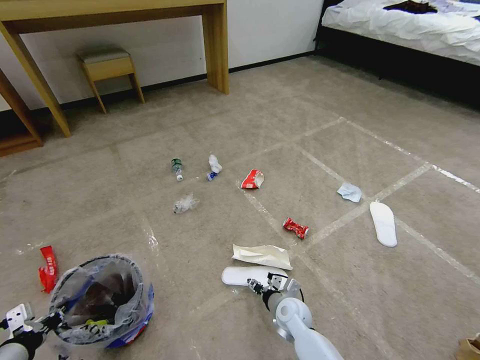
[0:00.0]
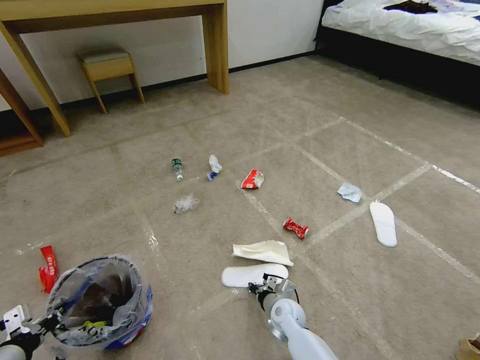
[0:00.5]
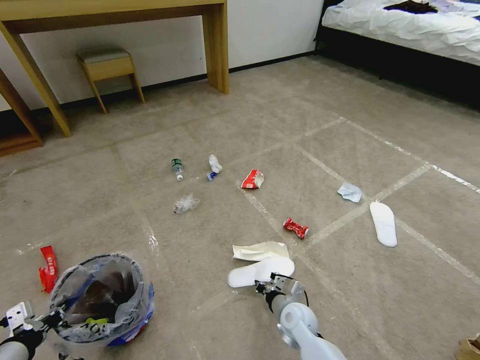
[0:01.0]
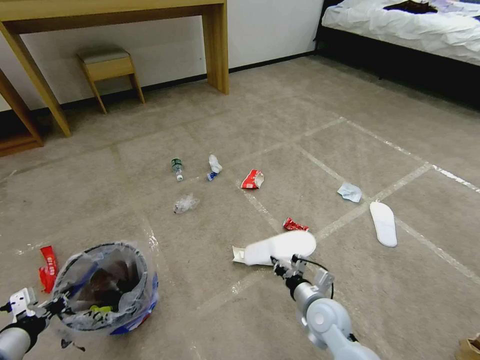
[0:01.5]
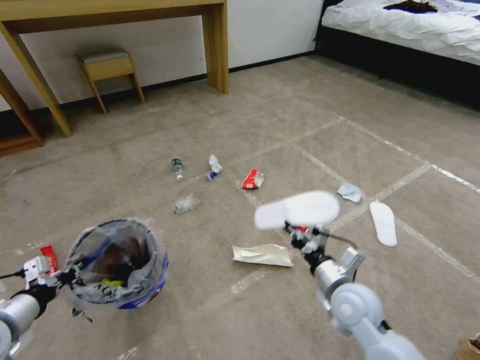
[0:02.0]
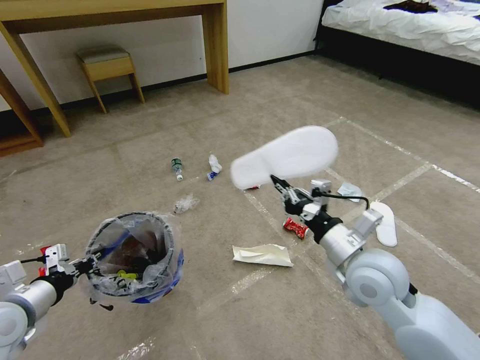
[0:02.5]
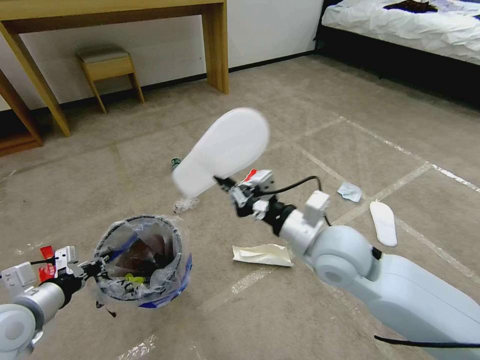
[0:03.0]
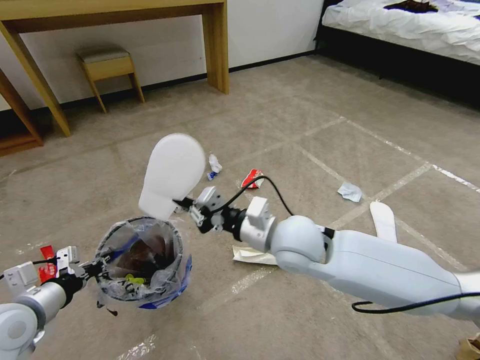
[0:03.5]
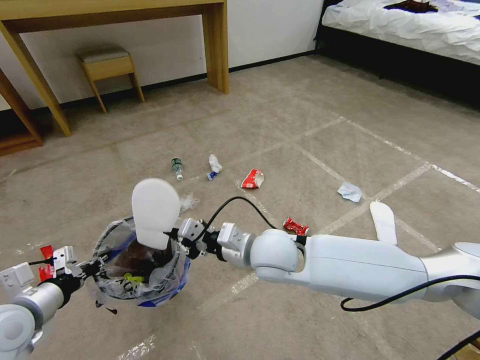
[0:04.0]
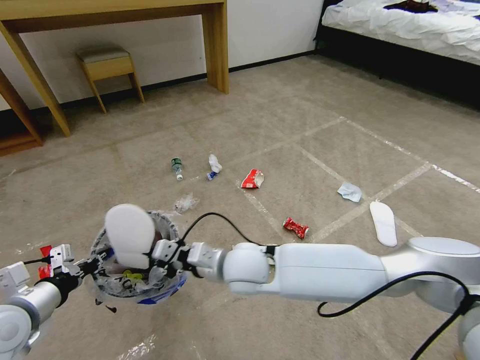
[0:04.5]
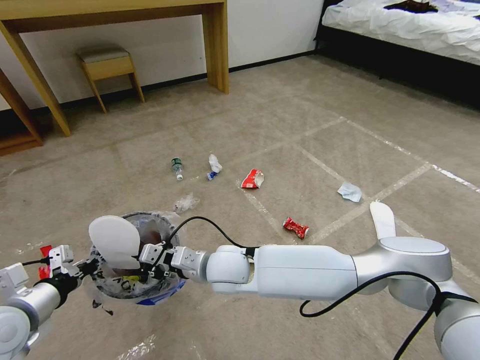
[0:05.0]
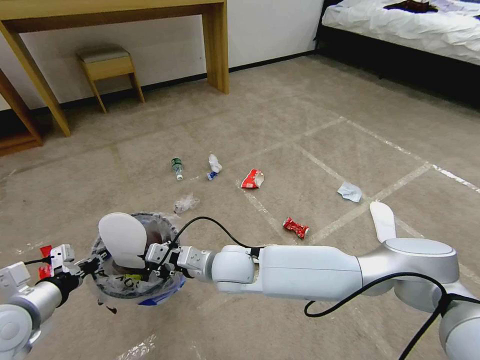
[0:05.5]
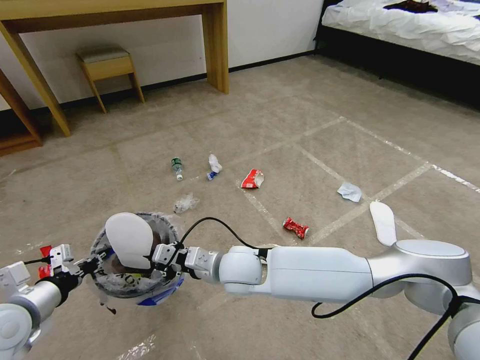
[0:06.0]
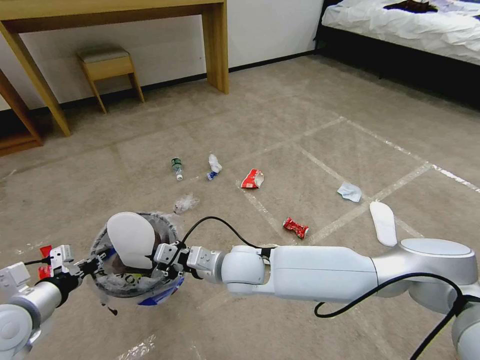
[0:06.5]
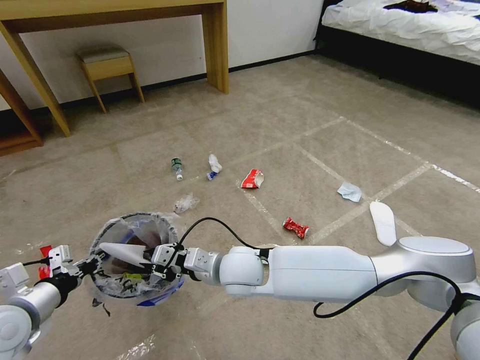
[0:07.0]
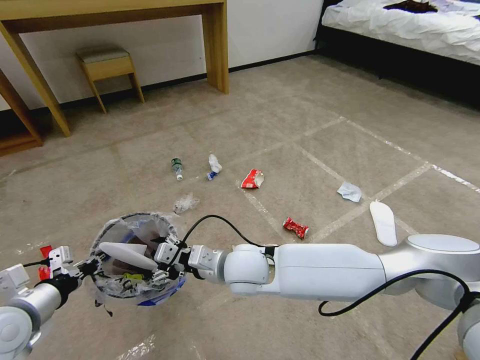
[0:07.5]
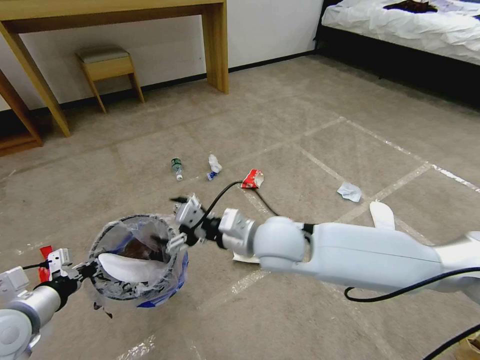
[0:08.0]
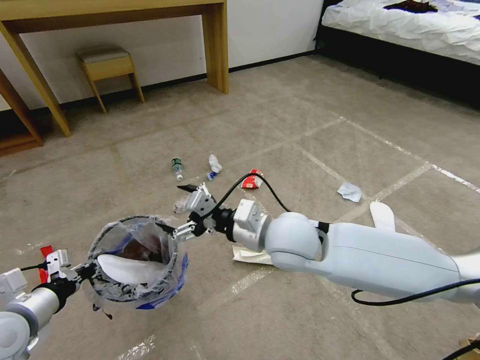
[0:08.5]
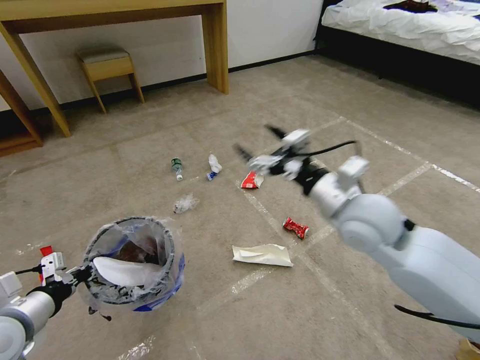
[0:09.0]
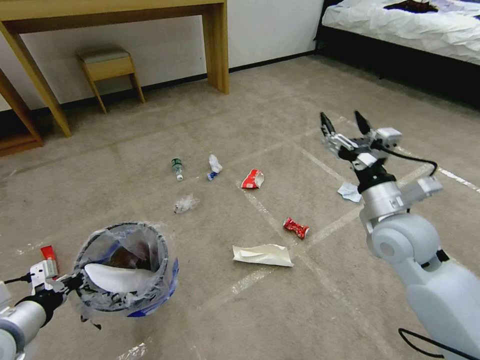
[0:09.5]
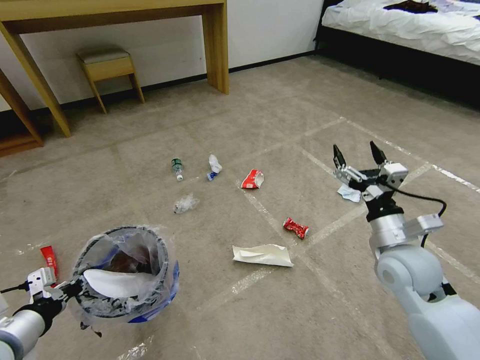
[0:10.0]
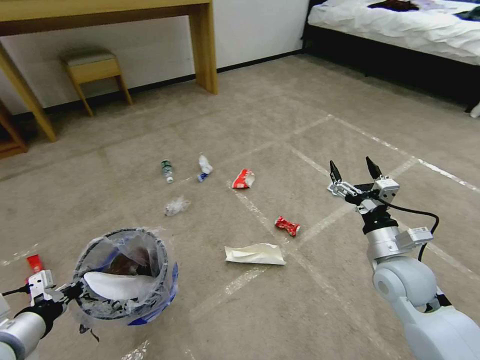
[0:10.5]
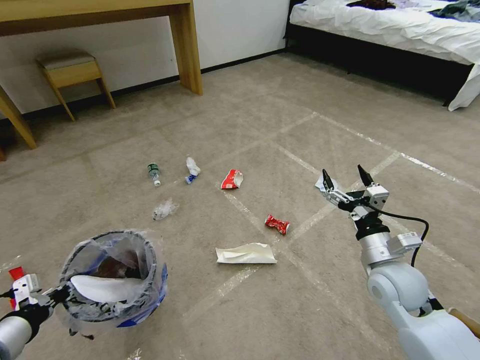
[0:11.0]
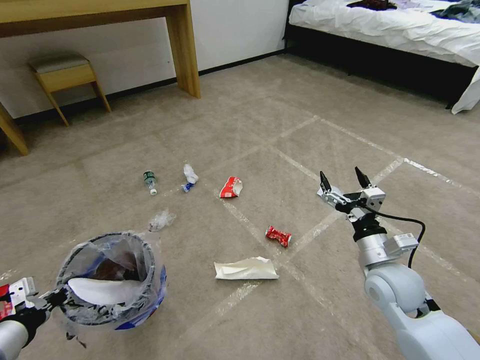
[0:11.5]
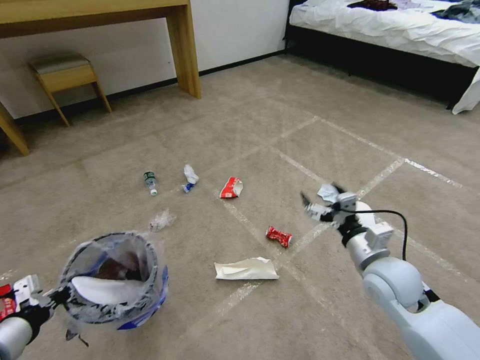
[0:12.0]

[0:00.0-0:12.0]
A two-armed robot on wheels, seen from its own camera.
Task of the whole recording: Pick up the trash bin and place the garbage on the floor into it.
0:00.0 to 0:02.0: The left gripper is displaced forward and upward by some 10 cm; the right gripper is displaced upward and to the right by some 20 cm, and closes its fingers.
0:02.0 to 0:04.0: The right gripper moves to the left and upward, about 20 cm.
0:04.0 to 0:06.0: The right gripper moves to the left and downward, approximately 10 cm.
0:06.0 to 0:08.0: The right gripper is displaced upward and to the right by approximately 10 cm, and opens up.
0:08.0 to 0:10.0: The right gripper travels to the right by approximately 25 cm.

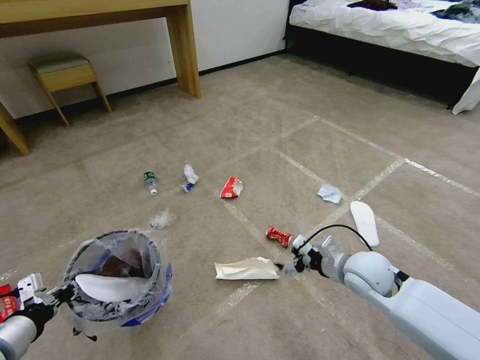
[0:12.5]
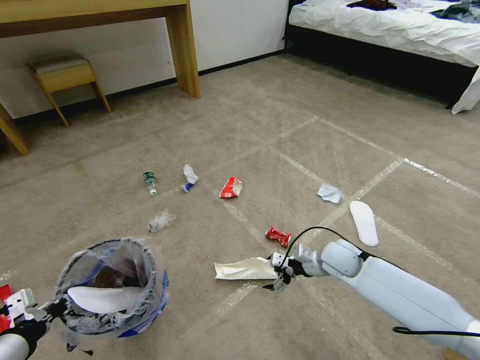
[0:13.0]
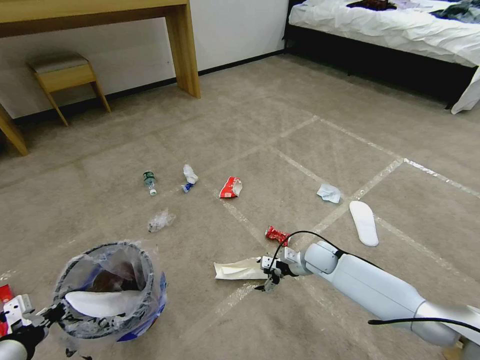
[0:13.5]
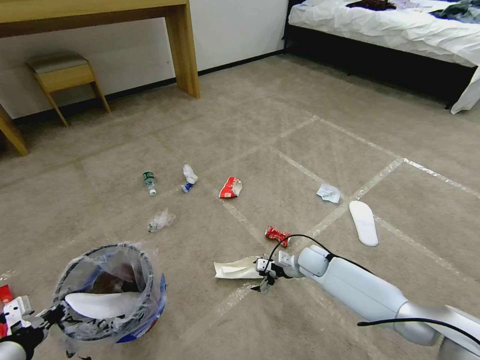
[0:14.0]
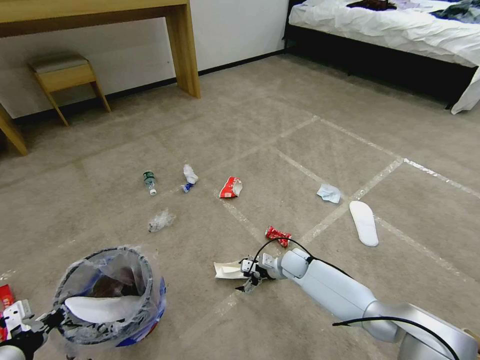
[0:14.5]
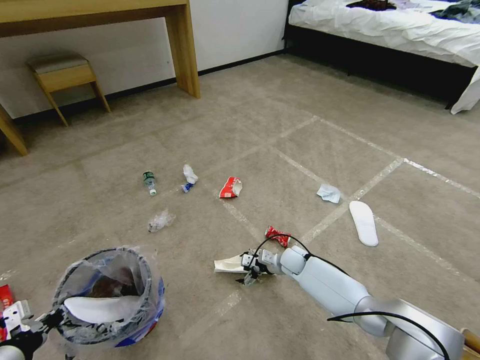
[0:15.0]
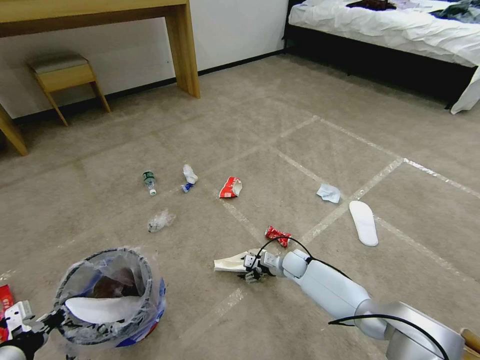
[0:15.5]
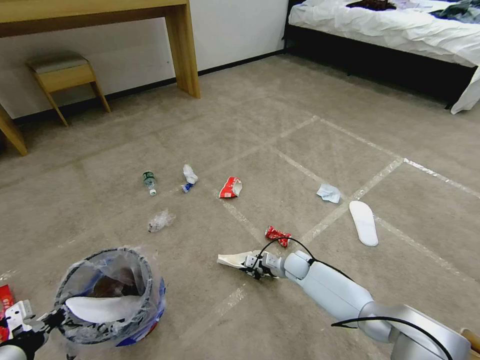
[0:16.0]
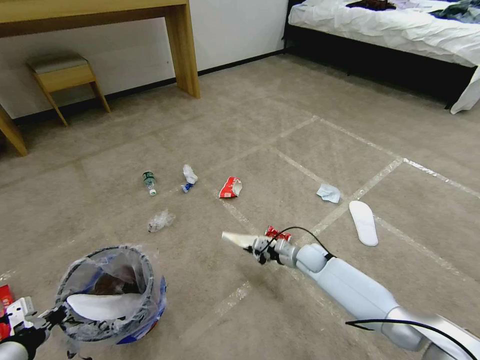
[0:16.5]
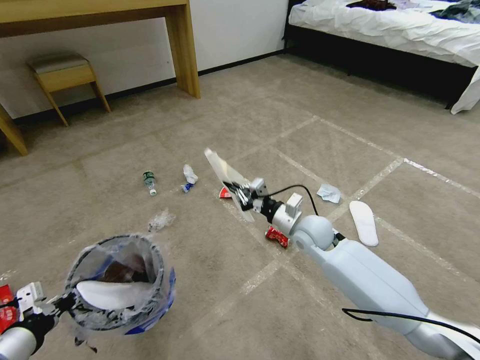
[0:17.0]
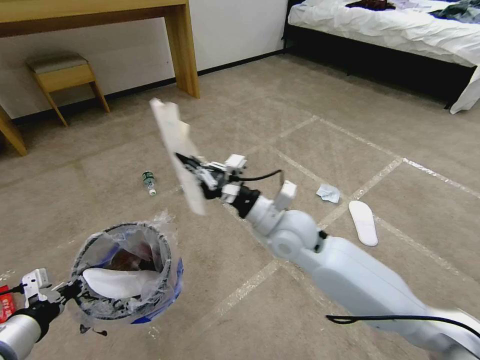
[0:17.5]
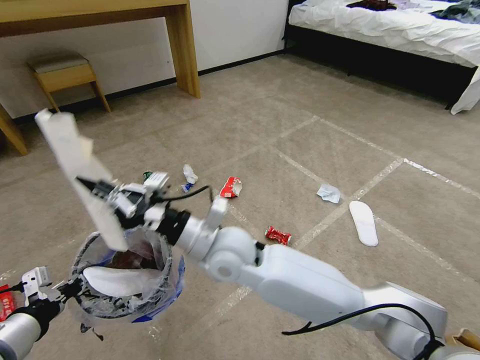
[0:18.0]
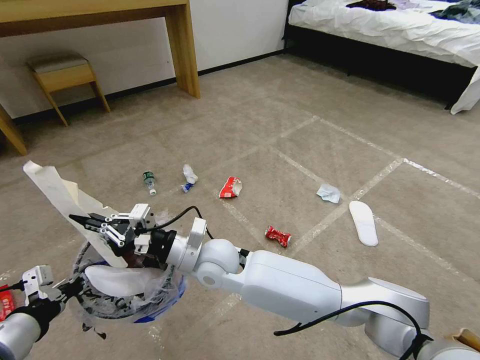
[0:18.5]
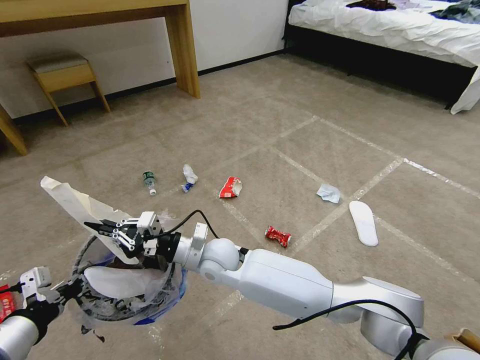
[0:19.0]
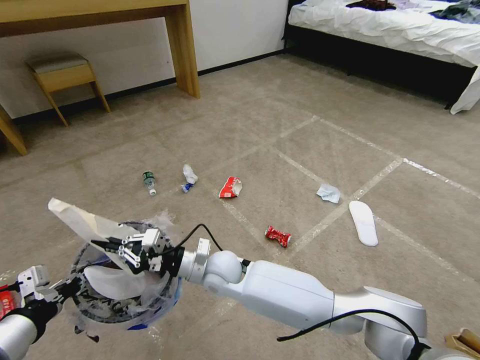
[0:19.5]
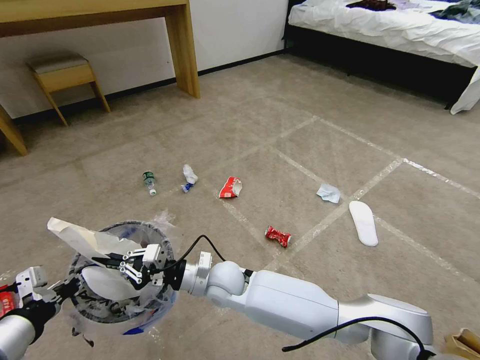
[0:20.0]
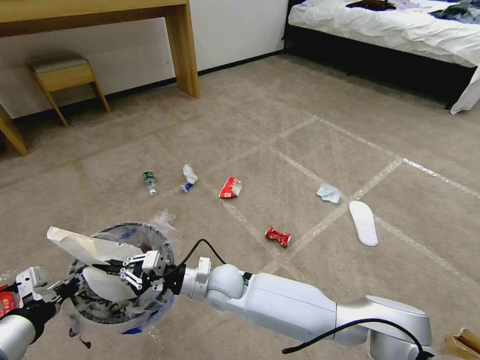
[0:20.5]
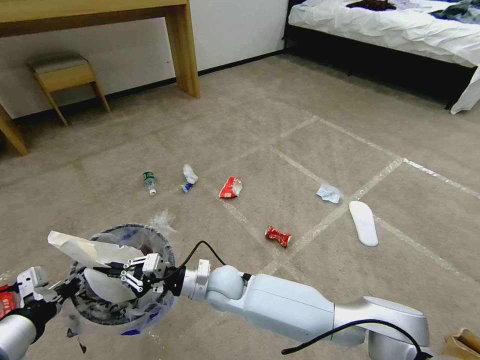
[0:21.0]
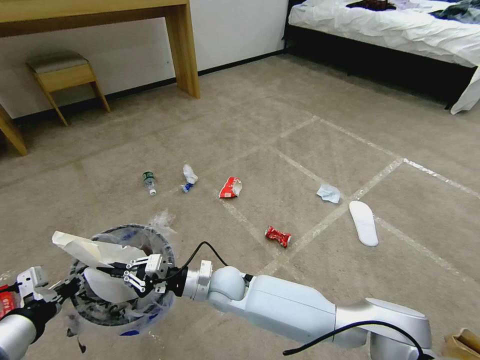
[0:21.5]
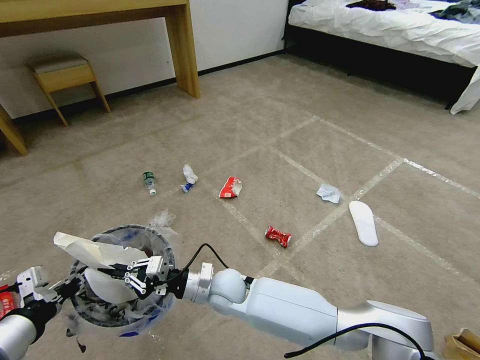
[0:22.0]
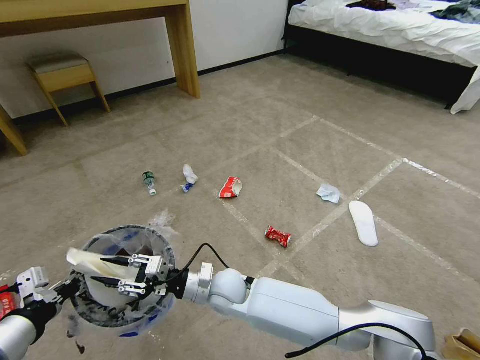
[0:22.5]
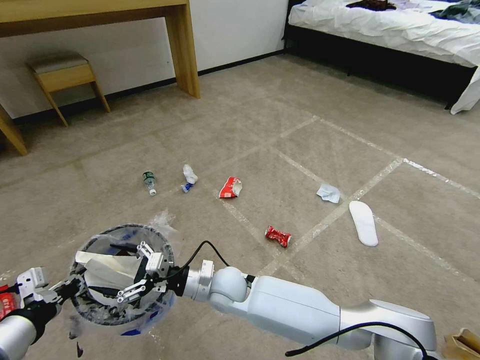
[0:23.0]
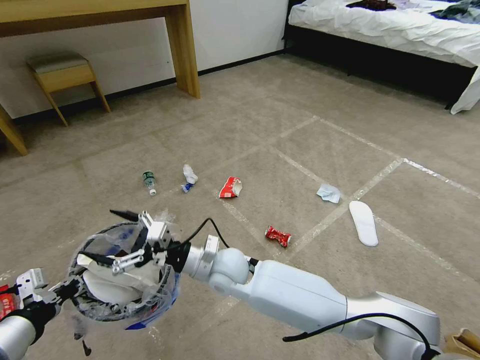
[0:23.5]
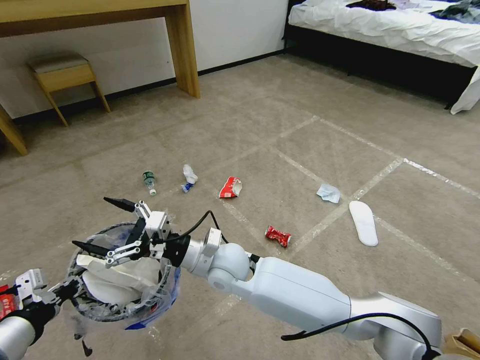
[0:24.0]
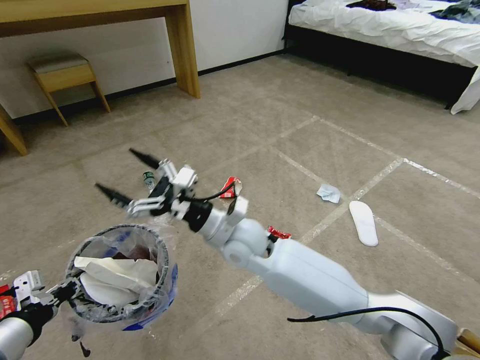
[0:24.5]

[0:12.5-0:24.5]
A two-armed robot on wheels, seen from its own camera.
Task of the whole recording: Pick up the trash bin and place the garbage on the floor into it.
0:12.5 to 0:14.5: The right gripper heads downward, forward and to the left, covering some 25 cm.
0:14.5 to 0:16.5: The right gripper changes place by some 5 cm, and closes.
0:16.5 to 0:18.5: The left gripper goes some 5 cm upward. Meanwhile the right gripper travels to the left and upward by approximately 35 cm.
0:18.5 to 0:20.5: The right gripper travels downward by approximately 10 cm.
0:20.5 to 0:22.5: The right gripper opens up.
0:22.5 to 0:24.5: The right gripper moves upward, approximately 15 cm, and opens its fingers.

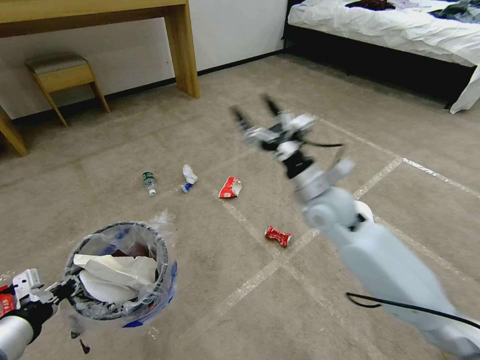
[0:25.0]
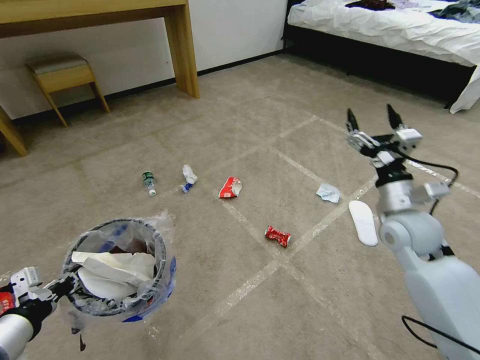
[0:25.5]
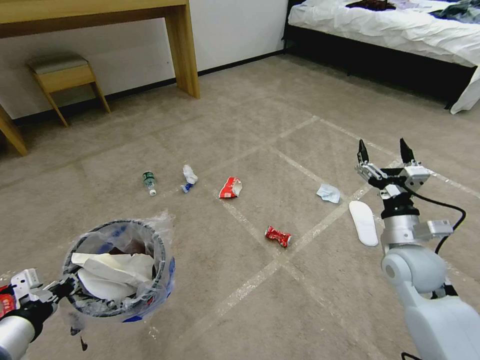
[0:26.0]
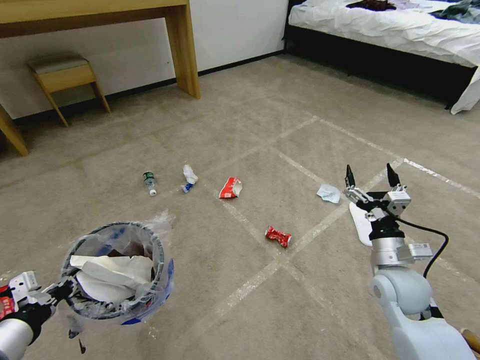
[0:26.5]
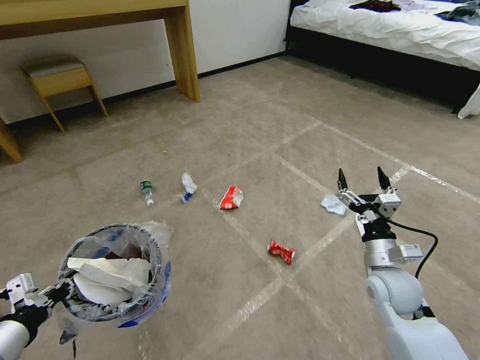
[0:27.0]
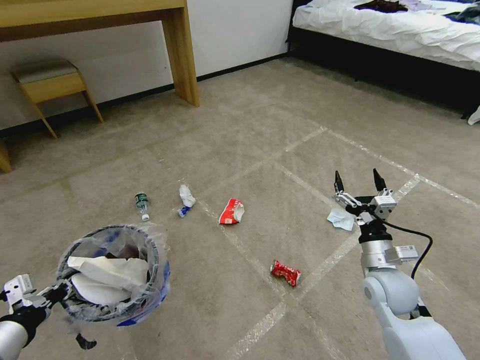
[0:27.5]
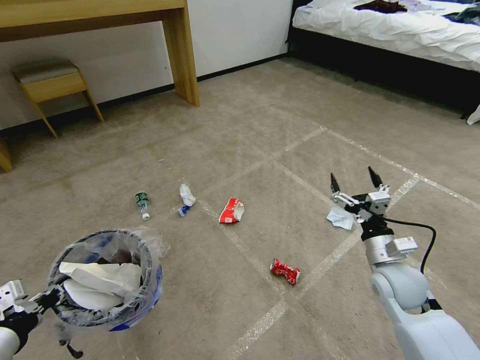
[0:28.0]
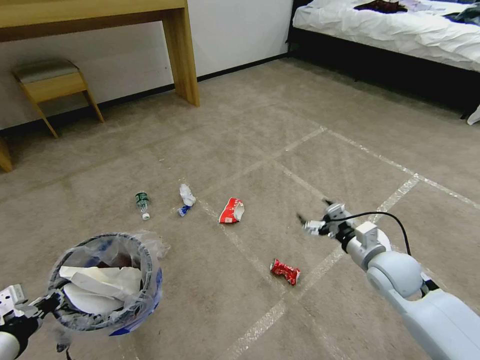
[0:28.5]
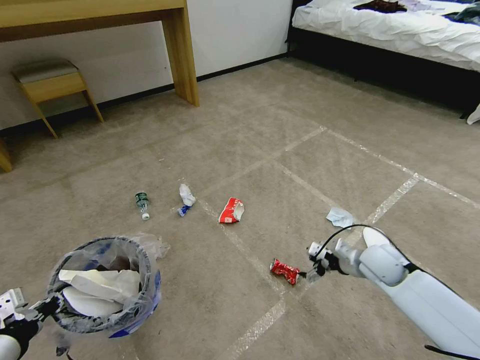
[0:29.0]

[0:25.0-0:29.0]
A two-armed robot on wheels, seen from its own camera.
Task of the whole recording: Pick up the trash bin and place the garbage on the floor into it.
0:25.0 to 0:27.0: The right gripper is displaced downward, to the right and backward by some 20 cm.
0:27.0 to 0:29.0: The right gripper goes approximately 10 cm forward.
